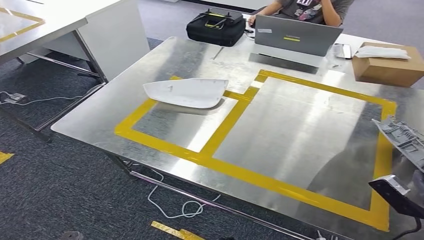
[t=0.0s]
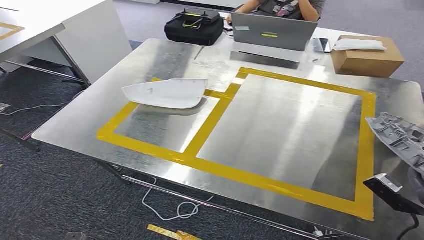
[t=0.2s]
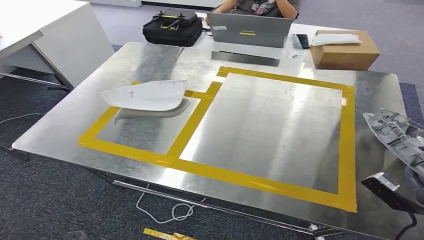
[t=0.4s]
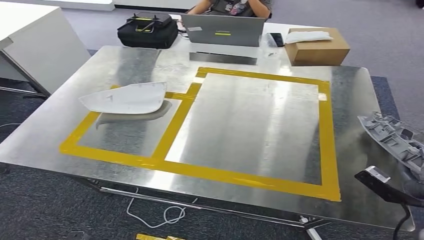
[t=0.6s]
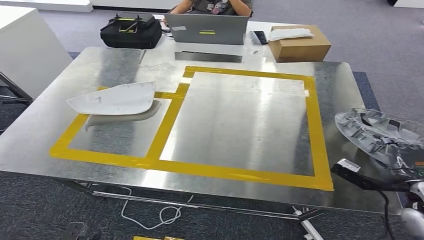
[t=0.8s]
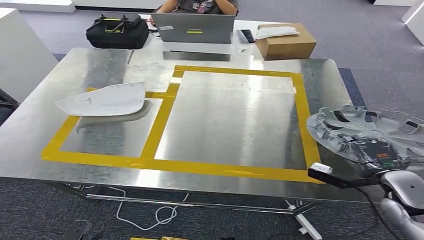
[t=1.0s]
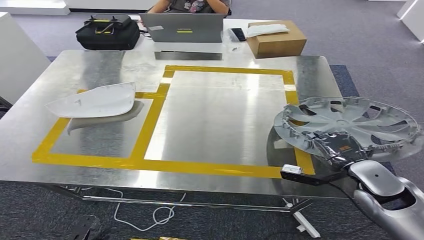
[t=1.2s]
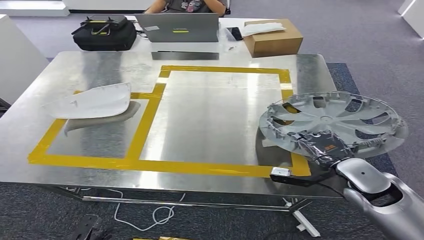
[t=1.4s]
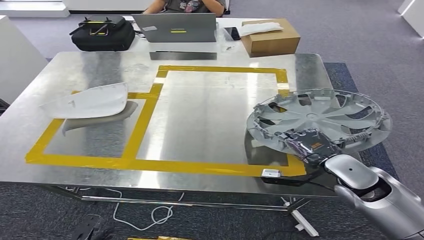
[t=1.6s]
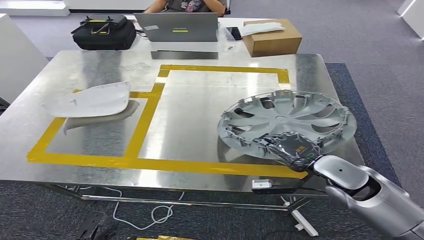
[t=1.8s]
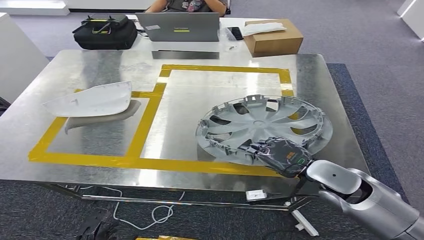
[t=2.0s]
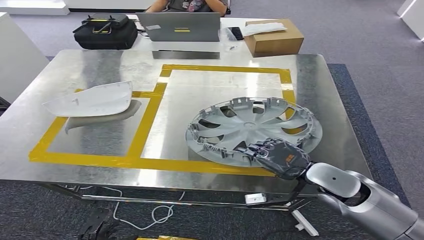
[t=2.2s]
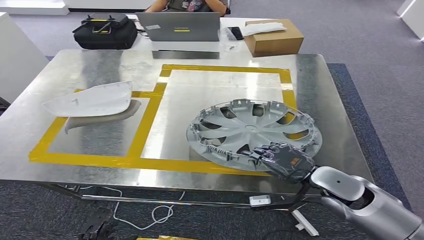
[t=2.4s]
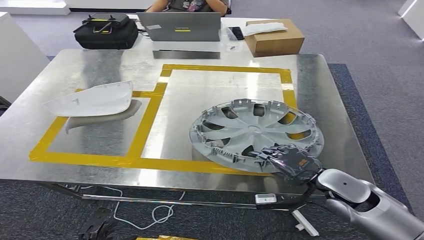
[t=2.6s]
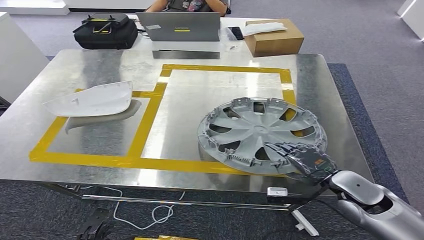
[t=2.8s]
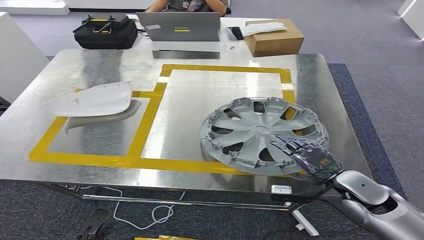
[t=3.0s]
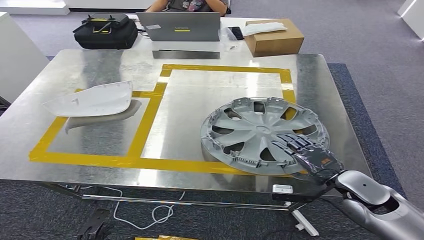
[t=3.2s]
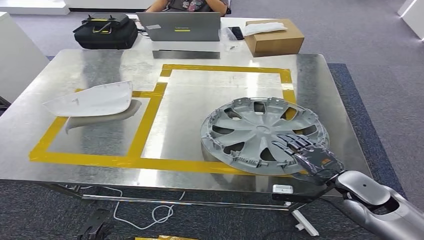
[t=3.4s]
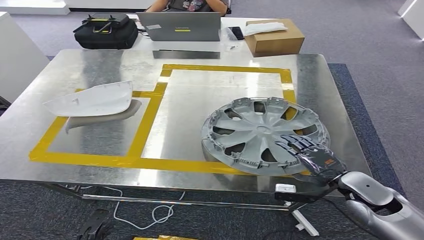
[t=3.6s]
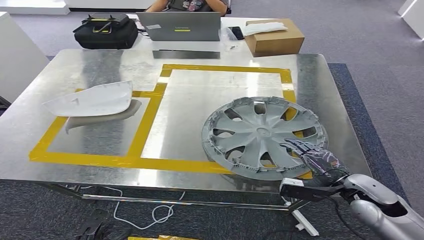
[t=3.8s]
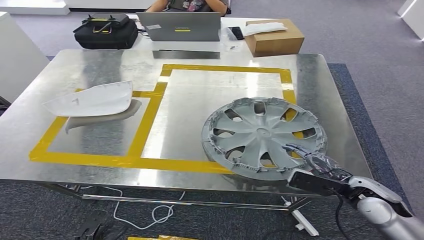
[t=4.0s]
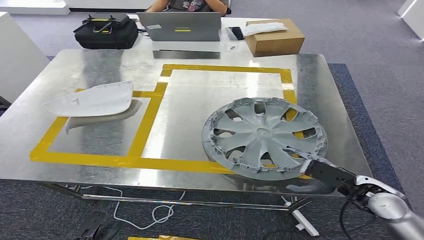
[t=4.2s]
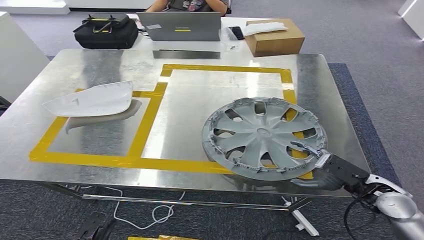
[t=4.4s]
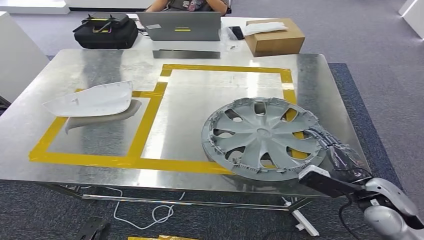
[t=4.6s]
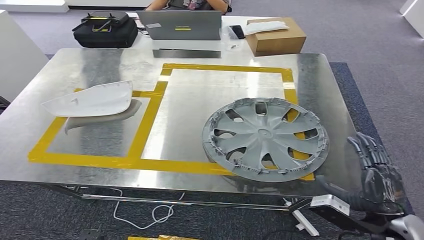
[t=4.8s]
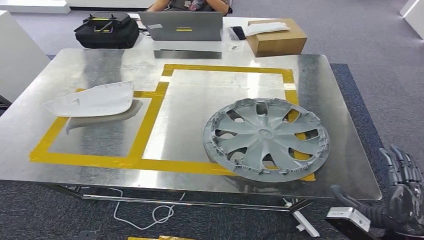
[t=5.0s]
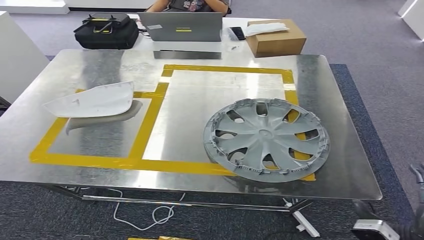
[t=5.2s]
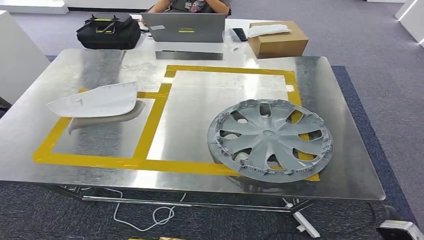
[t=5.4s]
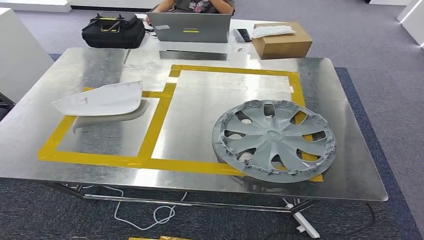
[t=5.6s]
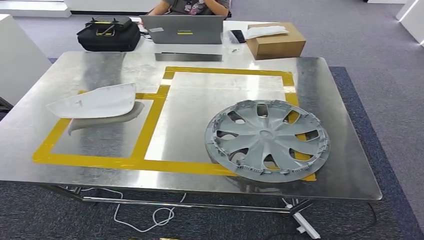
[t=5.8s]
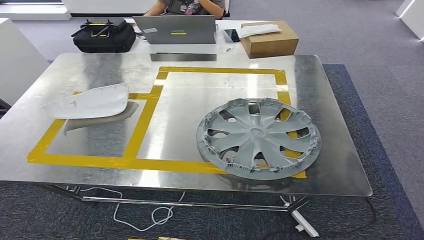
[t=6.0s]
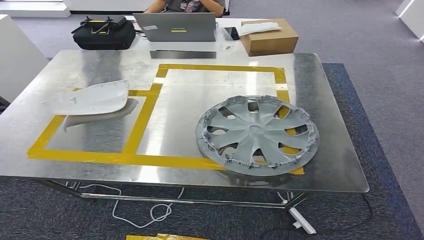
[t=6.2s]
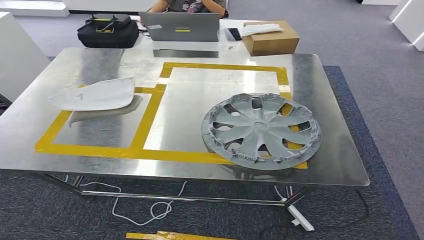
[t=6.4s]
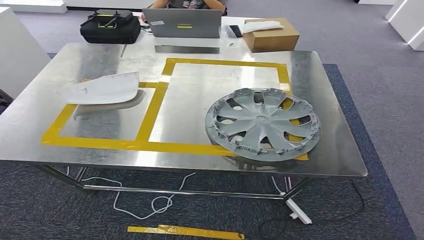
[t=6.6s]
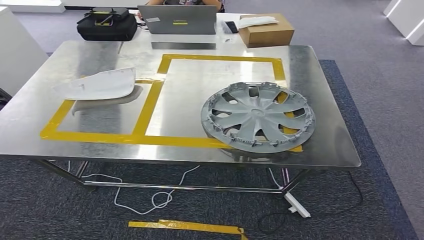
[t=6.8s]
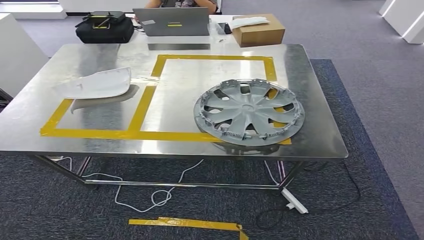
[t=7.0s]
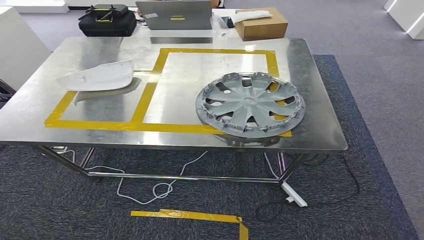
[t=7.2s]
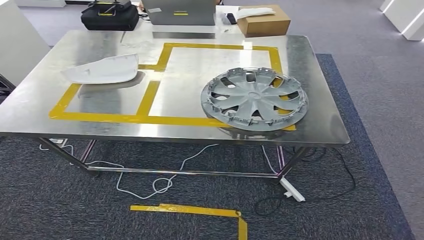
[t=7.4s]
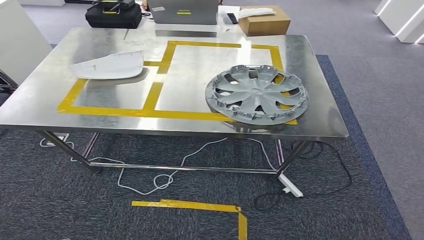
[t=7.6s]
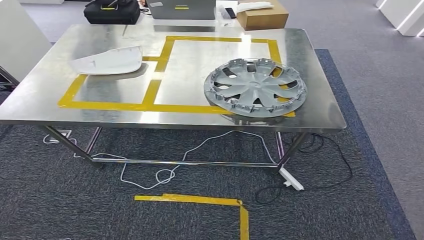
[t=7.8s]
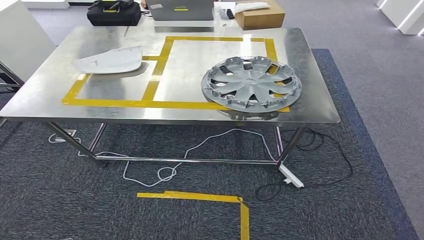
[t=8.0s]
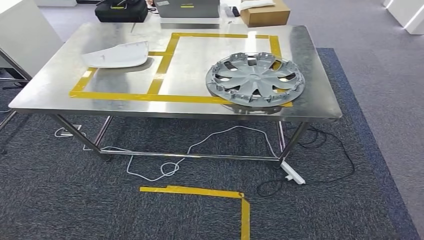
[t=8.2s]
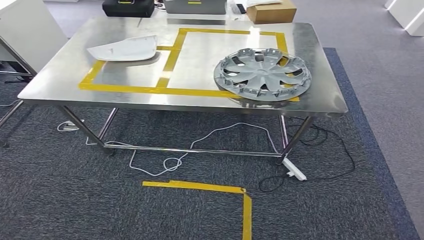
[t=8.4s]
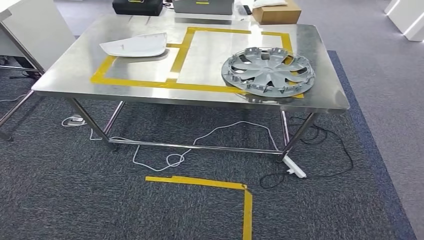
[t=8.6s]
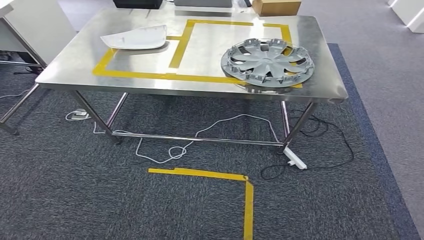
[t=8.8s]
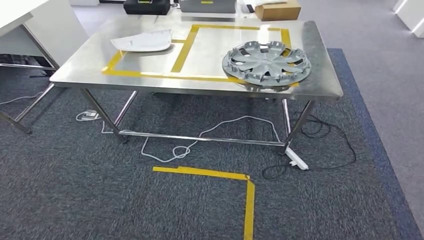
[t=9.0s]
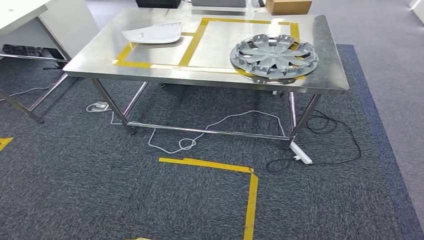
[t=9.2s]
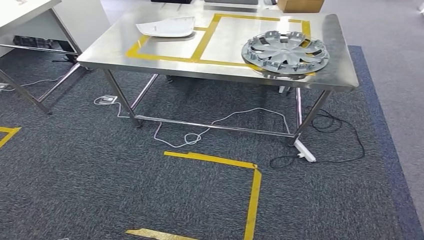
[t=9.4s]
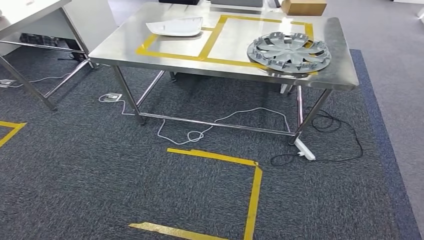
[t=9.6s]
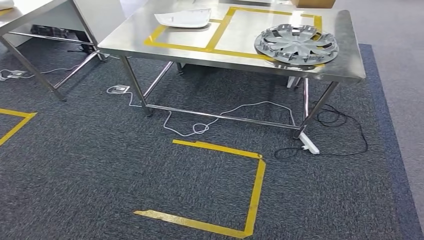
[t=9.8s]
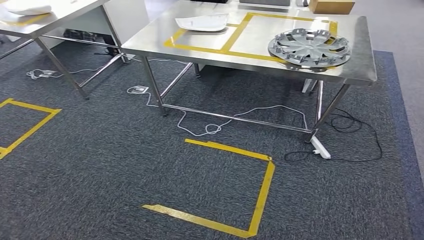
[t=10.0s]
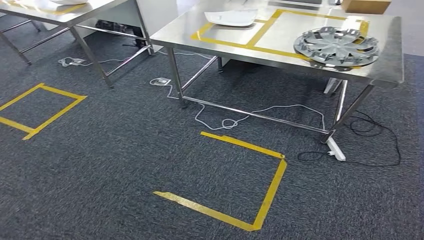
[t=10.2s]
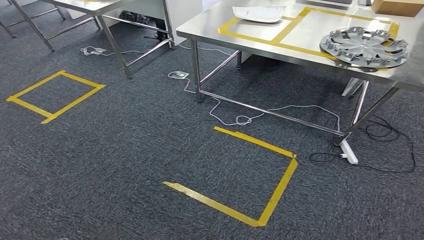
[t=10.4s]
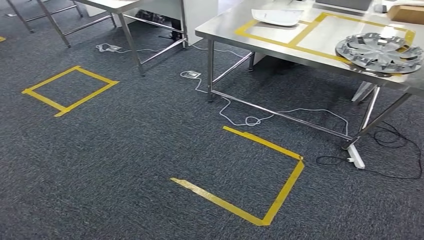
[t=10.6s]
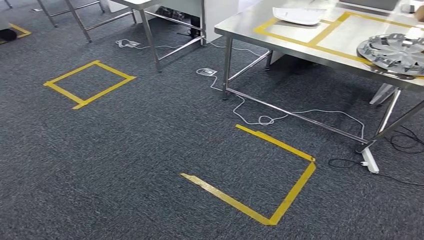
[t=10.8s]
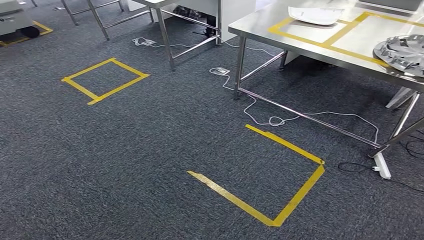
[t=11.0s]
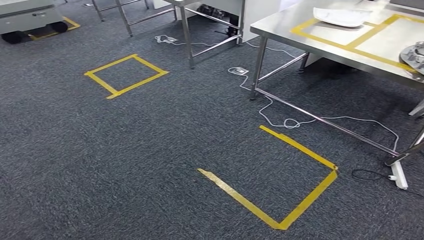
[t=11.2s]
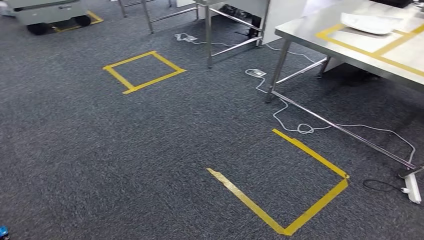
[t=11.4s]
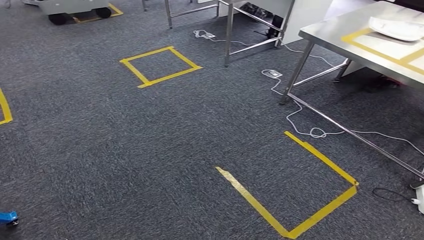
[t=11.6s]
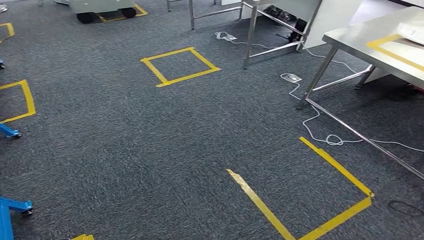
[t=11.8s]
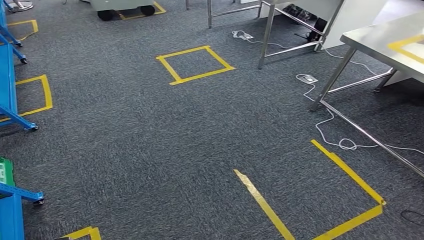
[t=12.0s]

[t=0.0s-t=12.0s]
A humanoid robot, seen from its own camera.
Step, t=0.0s to t=11.8s: Insert the small component into the corresponding slot on the workbench.
t=4.4s to t=6.0s: The right hand goes about 25 cm backward. The left hand goes about 10 cm backward.

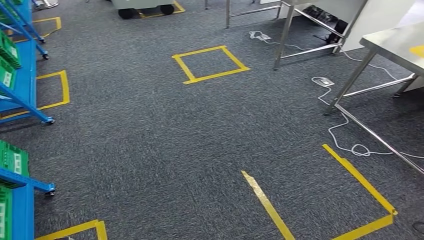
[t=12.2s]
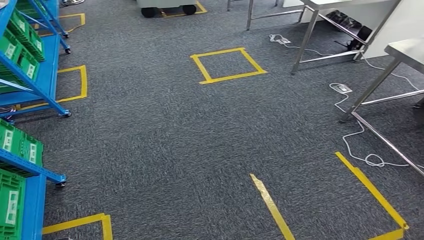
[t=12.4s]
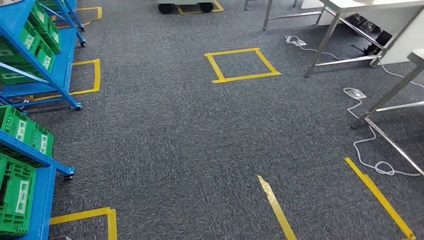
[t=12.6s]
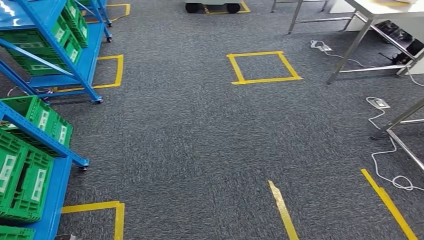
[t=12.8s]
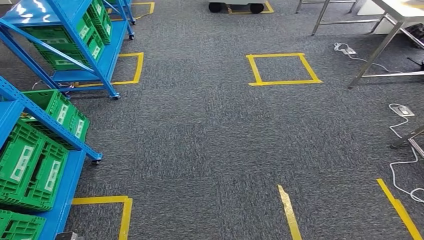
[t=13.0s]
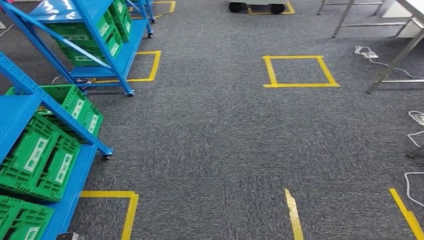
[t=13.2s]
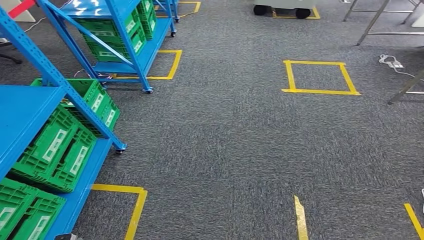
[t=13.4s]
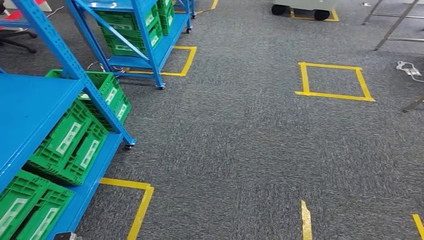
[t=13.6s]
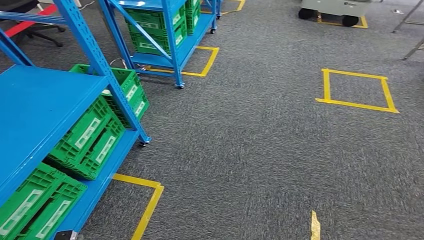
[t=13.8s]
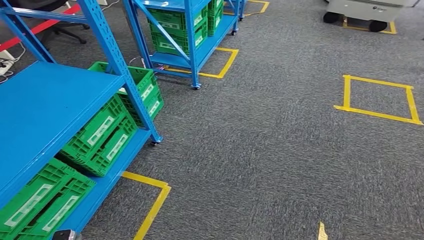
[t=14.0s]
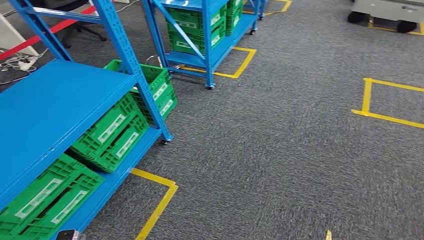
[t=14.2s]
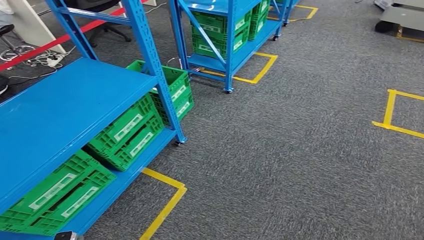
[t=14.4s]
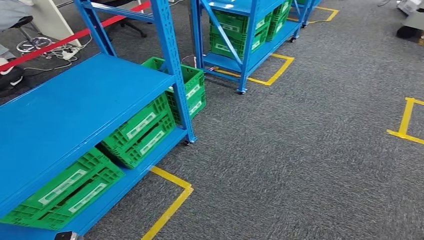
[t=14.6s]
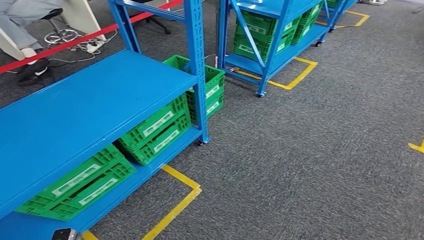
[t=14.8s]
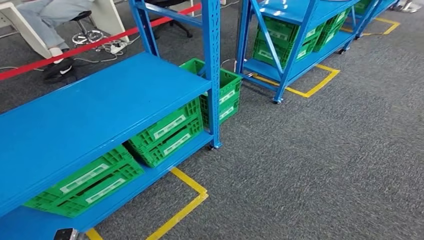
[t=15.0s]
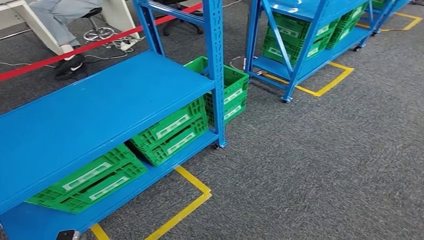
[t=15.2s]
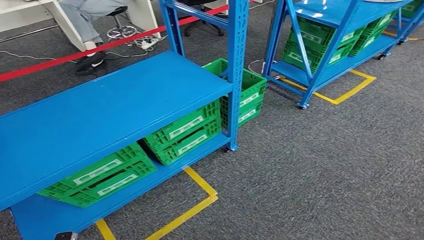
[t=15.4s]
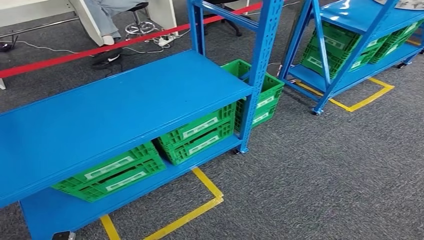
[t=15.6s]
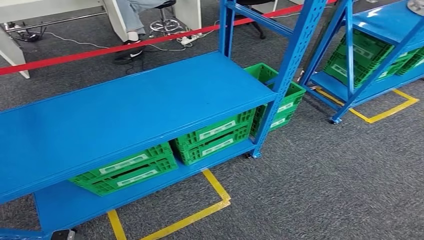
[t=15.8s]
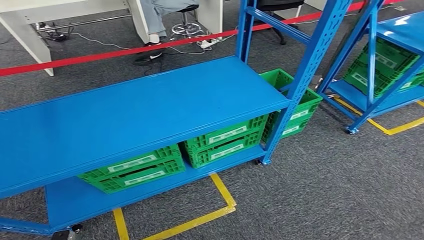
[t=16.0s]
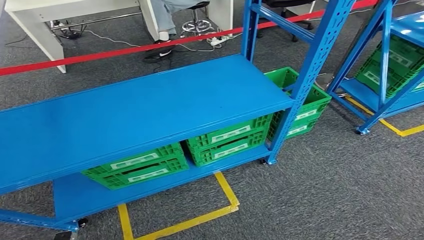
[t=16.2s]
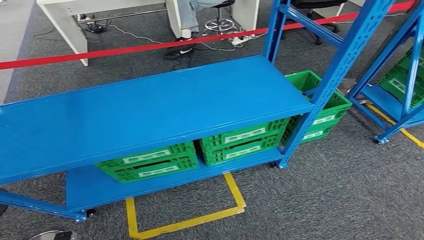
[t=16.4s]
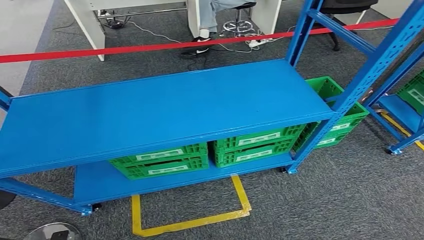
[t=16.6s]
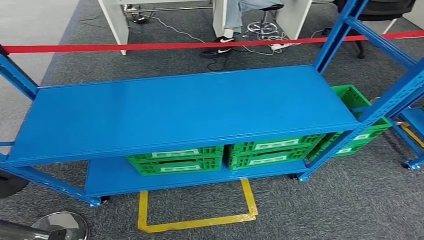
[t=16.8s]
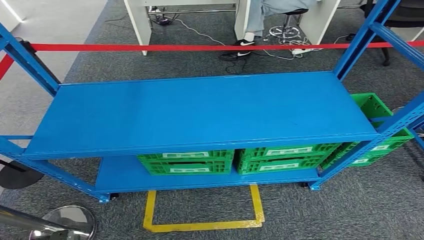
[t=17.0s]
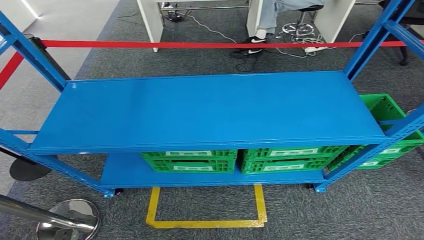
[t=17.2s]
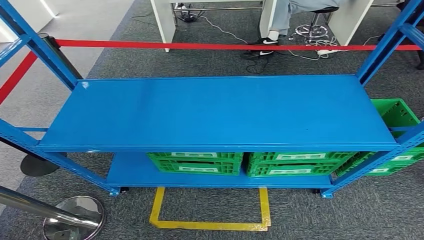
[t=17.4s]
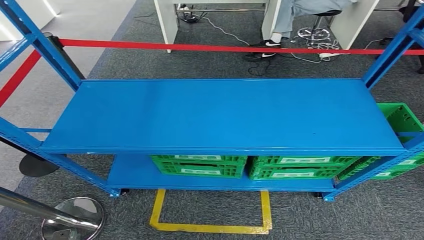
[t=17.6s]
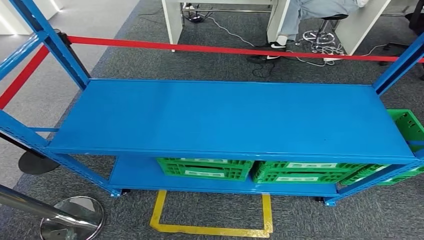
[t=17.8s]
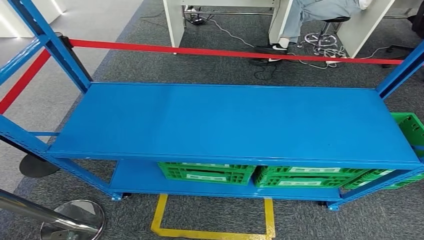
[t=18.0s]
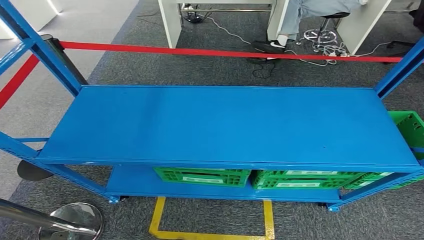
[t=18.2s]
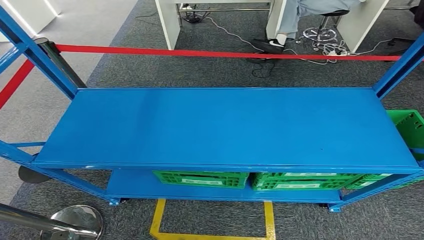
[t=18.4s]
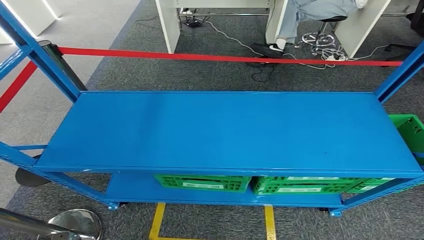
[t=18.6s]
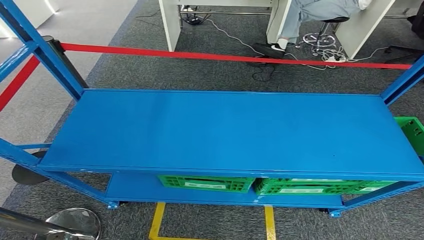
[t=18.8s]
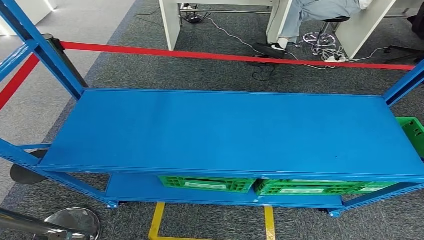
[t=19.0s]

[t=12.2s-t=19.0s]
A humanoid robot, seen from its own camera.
Step, t=12.2s to t=19.0s: Move to the initial position of the workbench.
